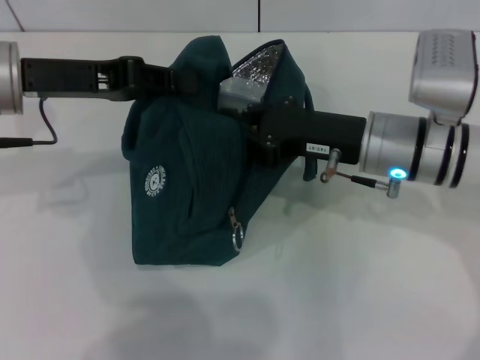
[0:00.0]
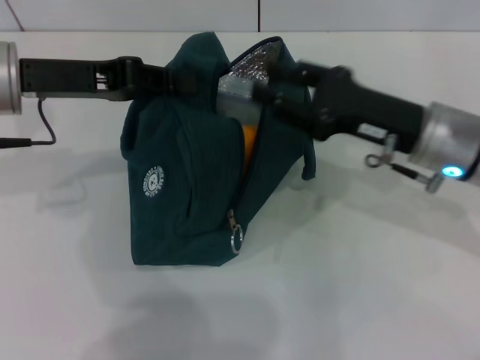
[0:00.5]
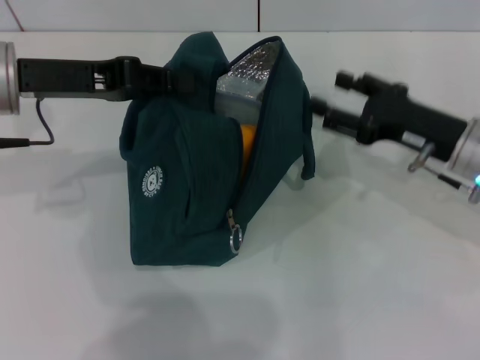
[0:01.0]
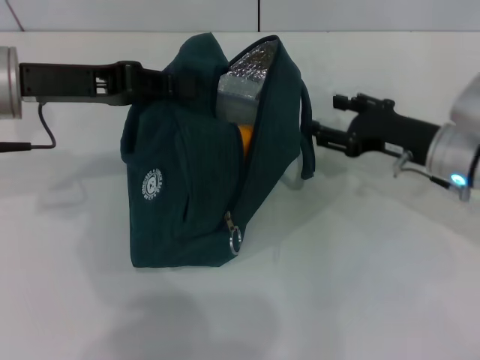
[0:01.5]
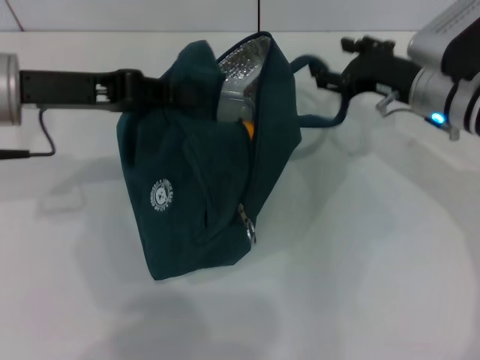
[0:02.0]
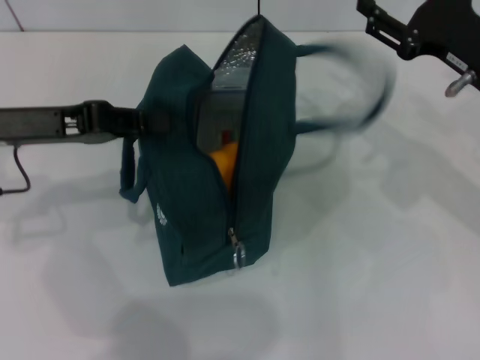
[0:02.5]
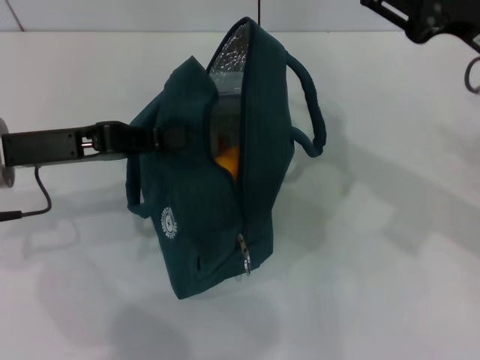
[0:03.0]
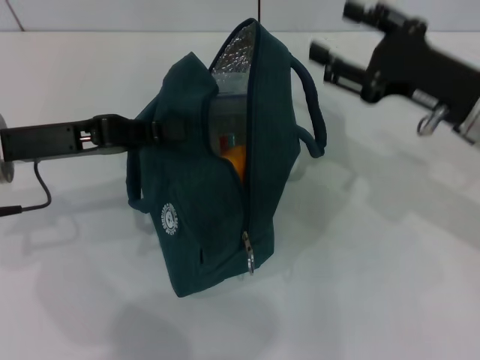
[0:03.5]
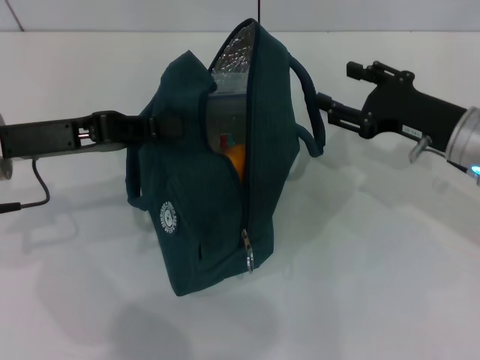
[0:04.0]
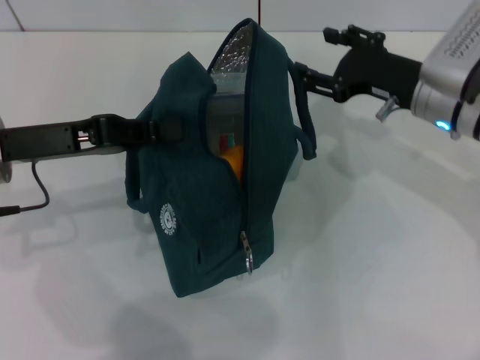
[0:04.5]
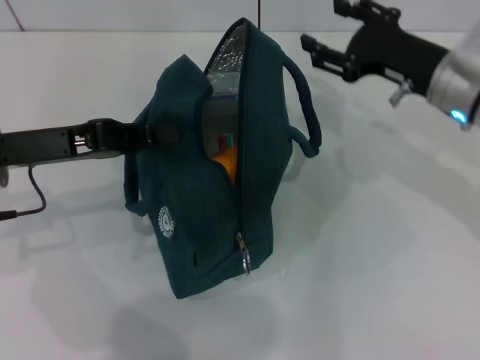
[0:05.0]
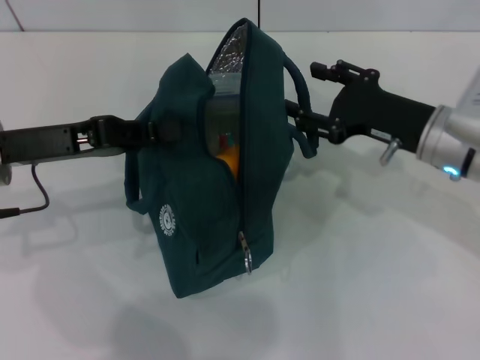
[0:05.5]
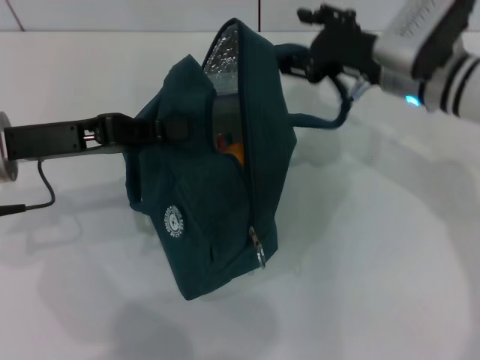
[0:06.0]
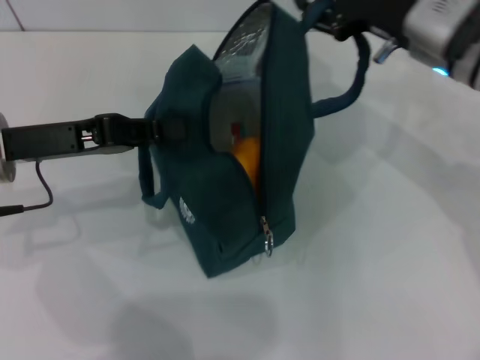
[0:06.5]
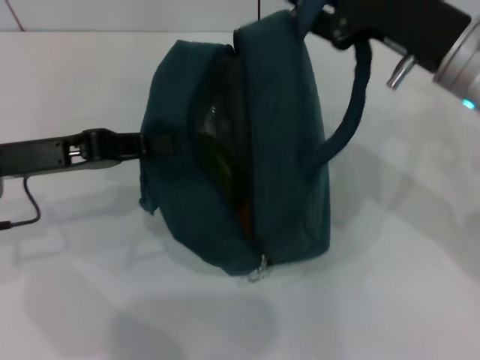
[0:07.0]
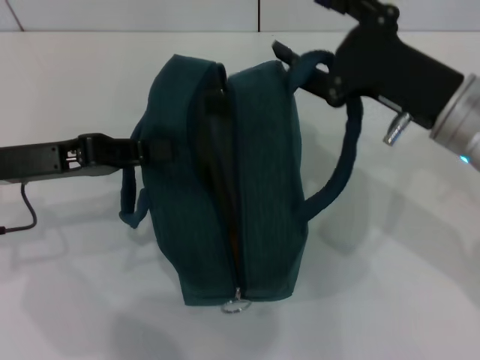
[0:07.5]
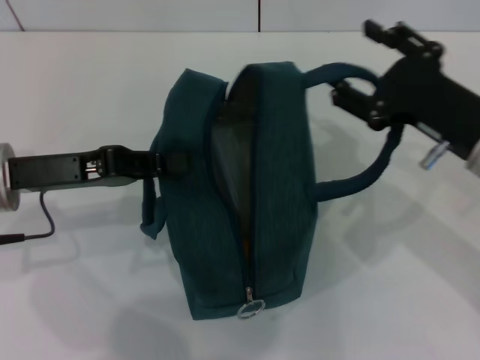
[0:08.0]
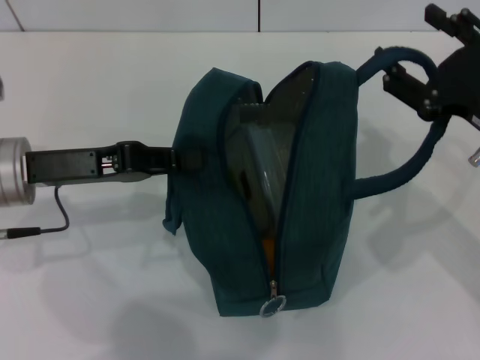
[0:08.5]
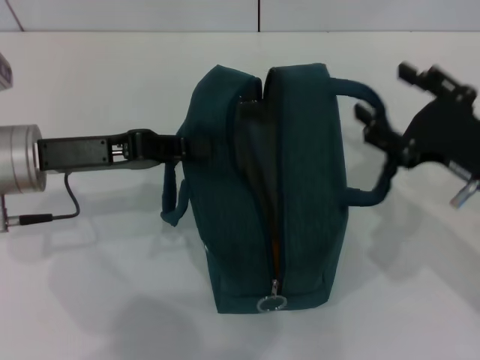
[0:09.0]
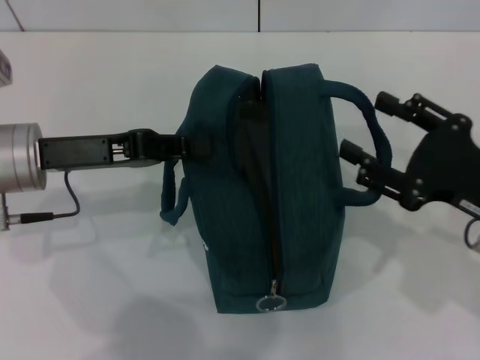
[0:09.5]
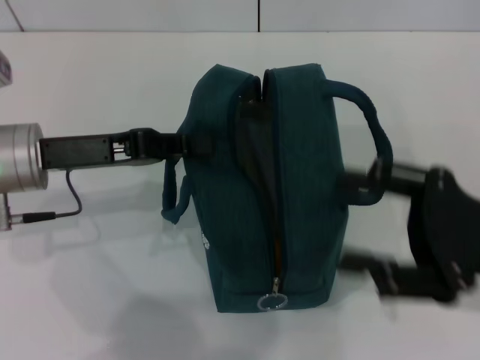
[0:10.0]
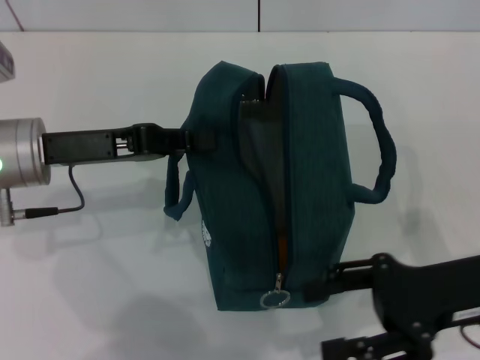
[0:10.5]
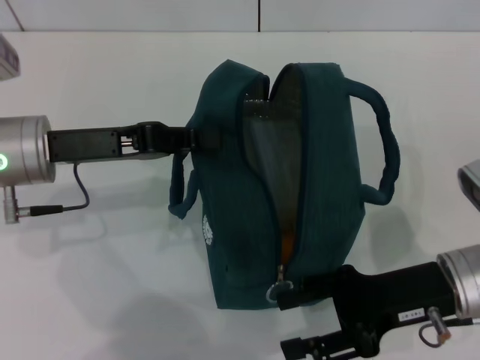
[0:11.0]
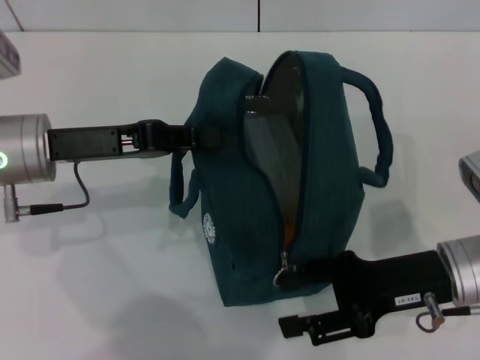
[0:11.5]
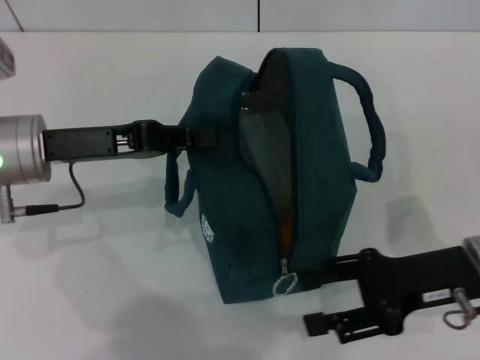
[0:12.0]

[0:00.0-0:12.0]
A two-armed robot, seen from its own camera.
Step, 0.5 to 9.0 s: Hold the lunch bag with your right hand.
0.0 to 2.0 s: The right gripper shifts about 10 cm forward and to the right, and opens its fingers.
2.0 to 4.0 s: The left gripper ends up roughly 5 cm from where it was. The right gripper heads backward, covering some 5 cm.
4.0 to 6.0 s: The right gripper is displaced to the left and forward by about 10 cm.
6.0 to 8.0 s: The right gripper shifts roughly 15 cm backward.
8.0 to 10.0 s: The right gripper moves roughly 5 cm.
10.0 to 12.0 s: The right gripper goes about 5 cm downward.

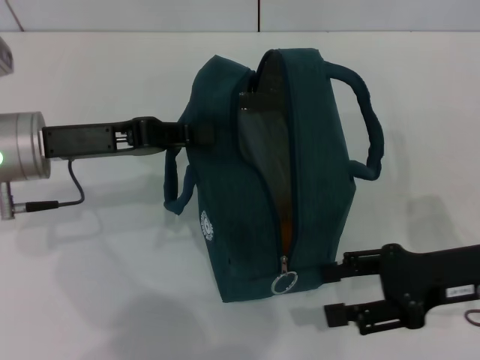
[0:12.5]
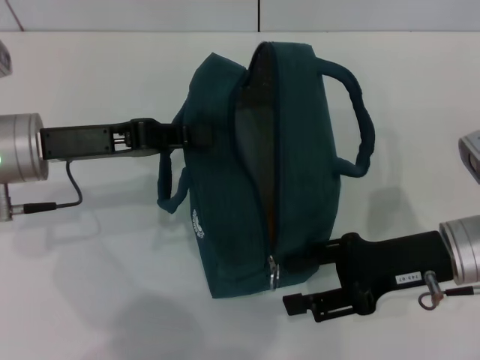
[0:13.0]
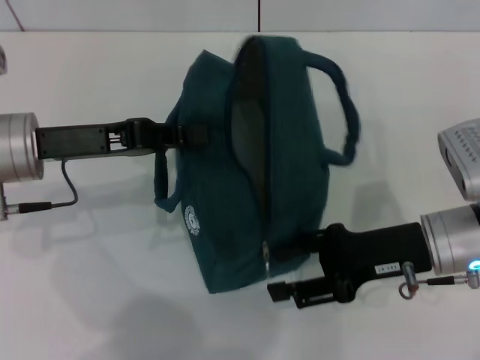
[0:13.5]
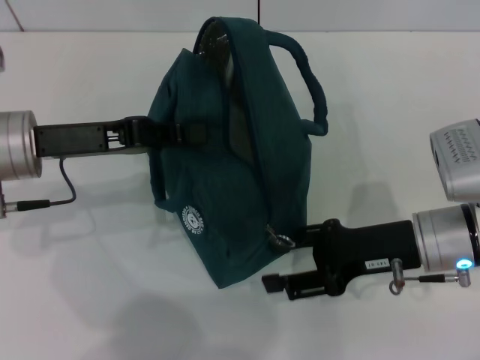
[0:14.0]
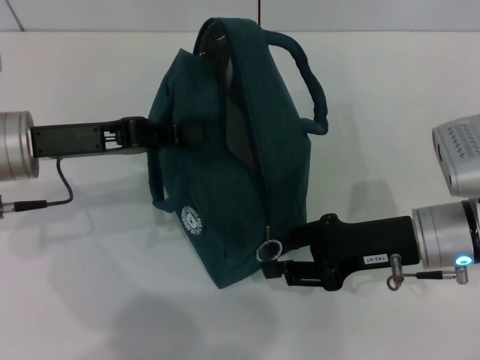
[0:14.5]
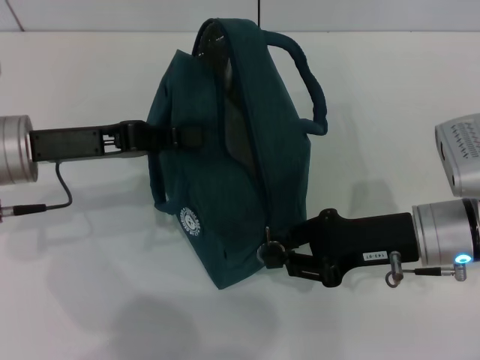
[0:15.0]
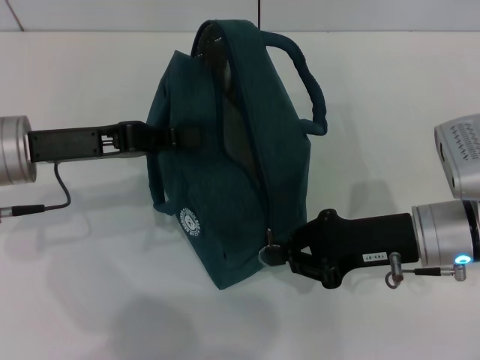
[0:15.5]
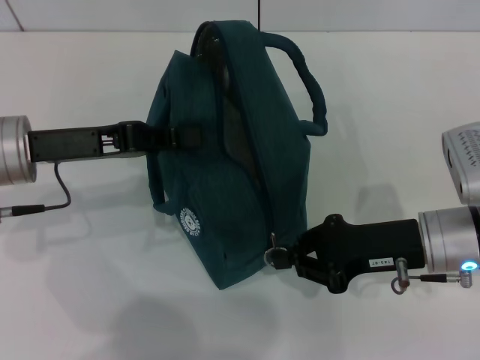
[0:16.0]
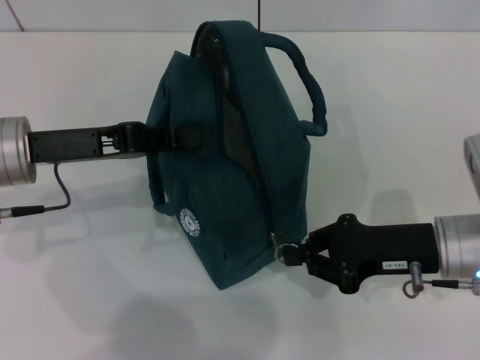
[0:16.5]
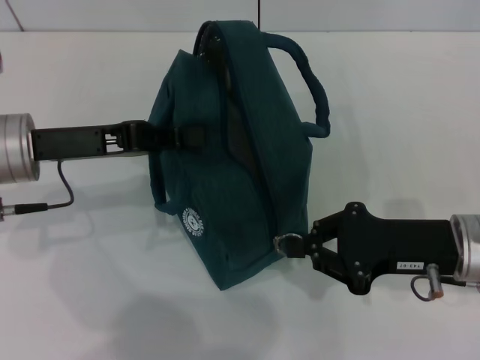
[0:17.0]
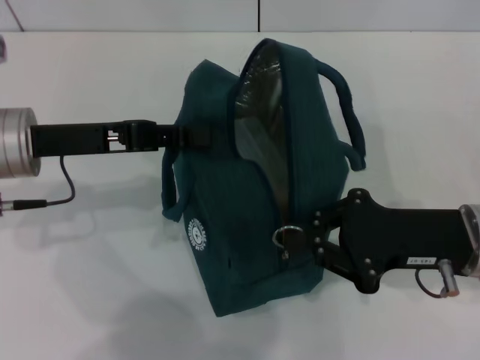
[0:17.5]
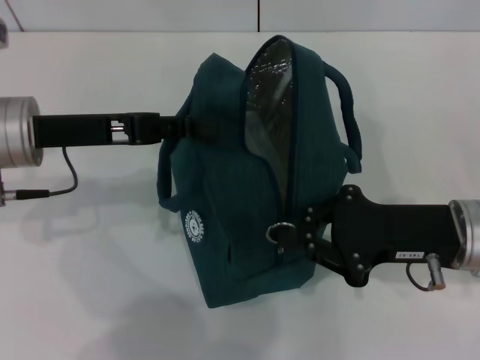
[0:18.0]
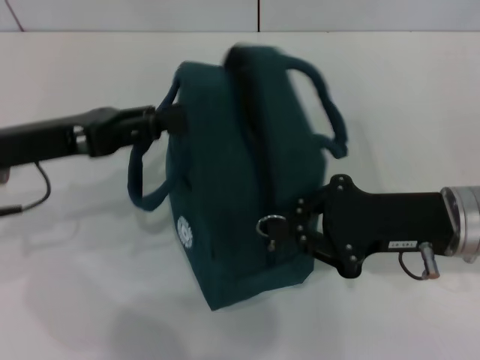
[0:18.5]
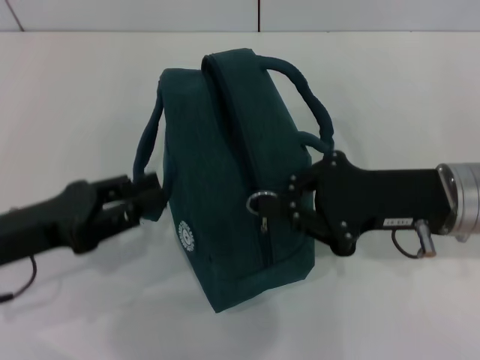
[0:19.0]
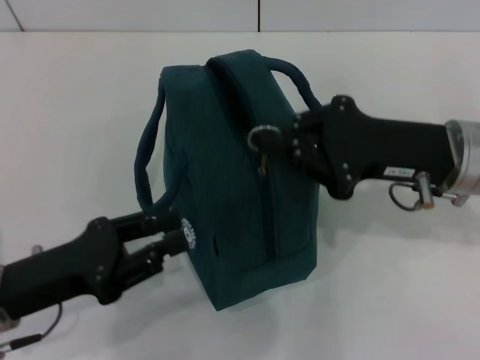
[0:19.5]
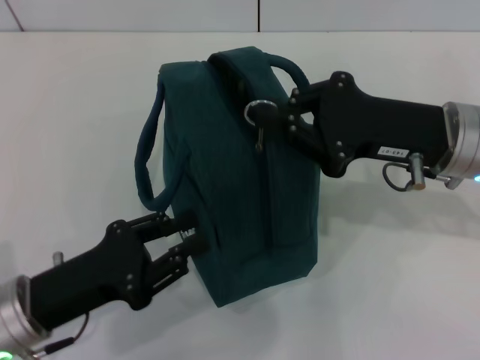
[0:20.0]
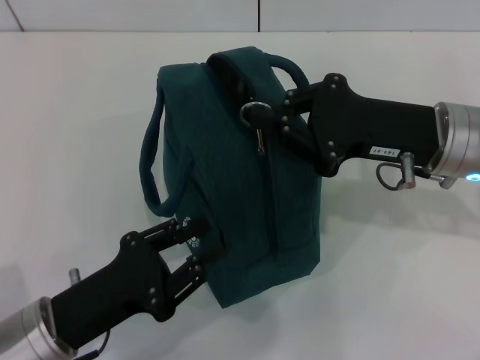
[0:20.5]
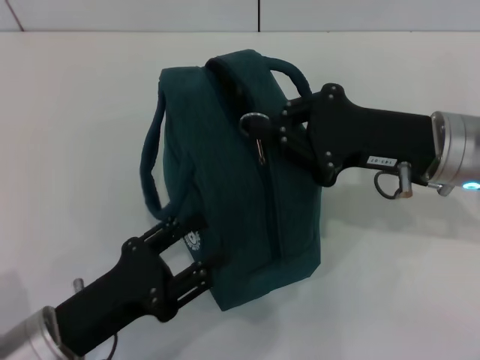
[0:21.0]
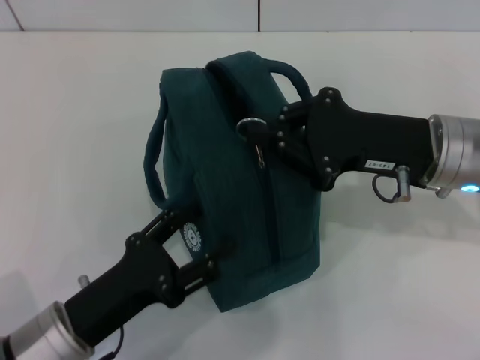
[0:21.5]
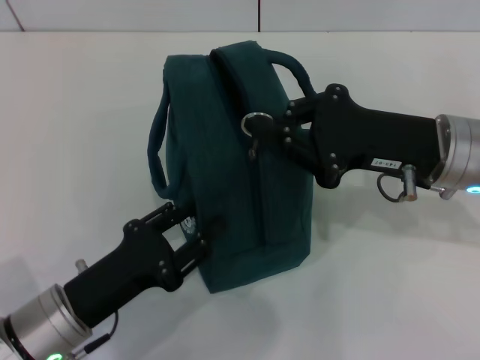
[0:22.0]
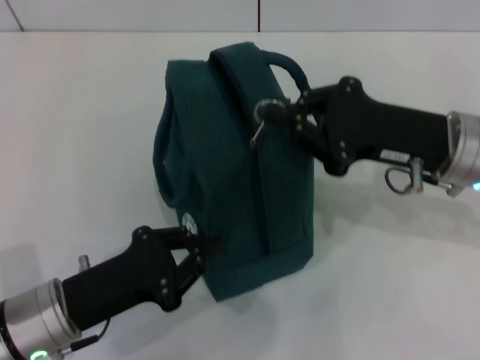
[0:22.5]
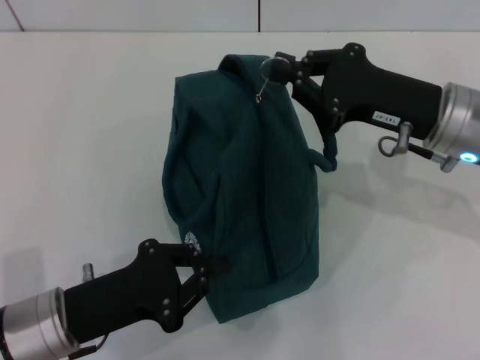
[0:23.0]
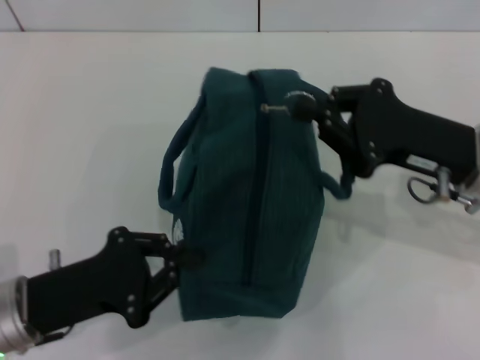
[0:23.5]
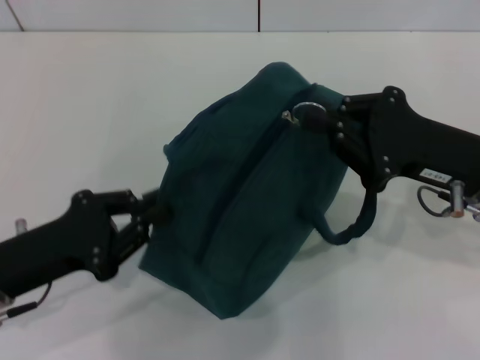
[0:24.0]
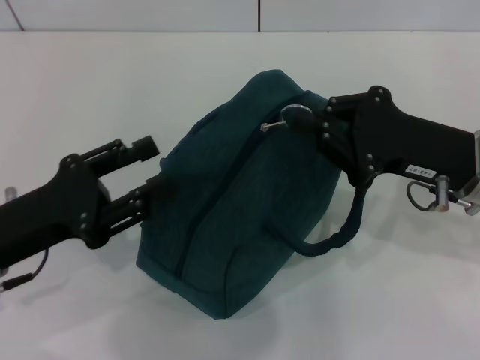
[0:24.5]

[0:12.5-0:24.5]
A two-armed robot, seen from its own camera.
Step, 12.5 to 18.0 s: Hold the lunch bag with your left hand.
12.5 to 14.5 s: The right gripper moves to the left, approximately 5 cm.
14.5 to 16.5 s: The right gripper closes.
16.5 to 18.5 s: The left gripper opens.
18.5 to 20.5 s: The left gripper is displaced backward and downward by some 15 cm, while the right gripper shifts by about 5 cm.
20.5 to 22.5 s: The left gripper opens, then closes again.
22.5 to 24.5 s: The left gripper goes roughly 5 cm upward.

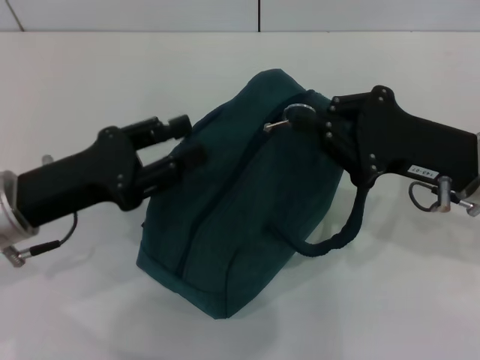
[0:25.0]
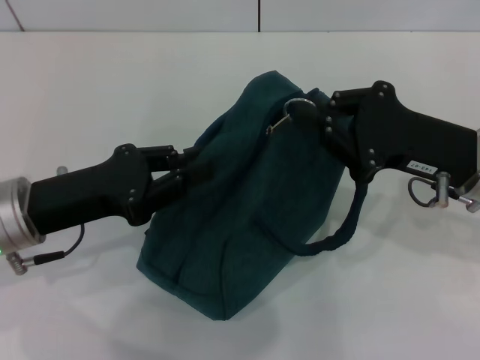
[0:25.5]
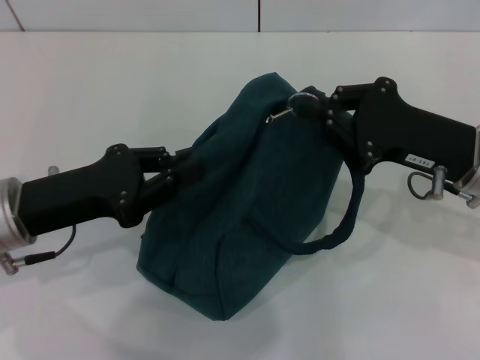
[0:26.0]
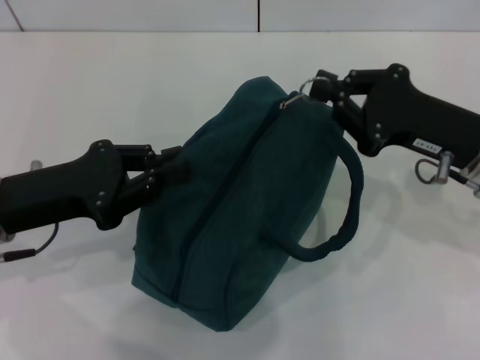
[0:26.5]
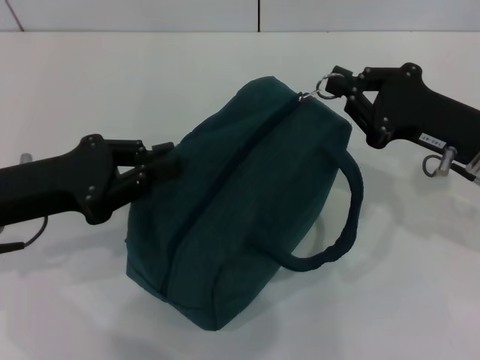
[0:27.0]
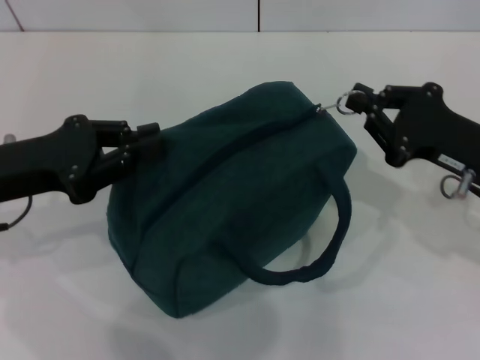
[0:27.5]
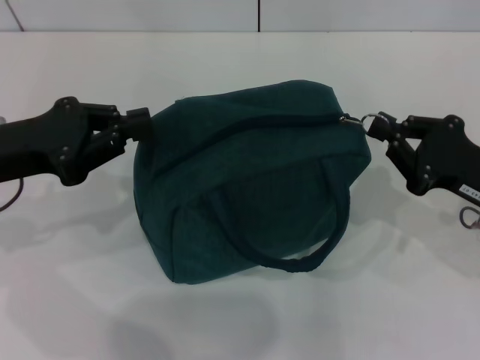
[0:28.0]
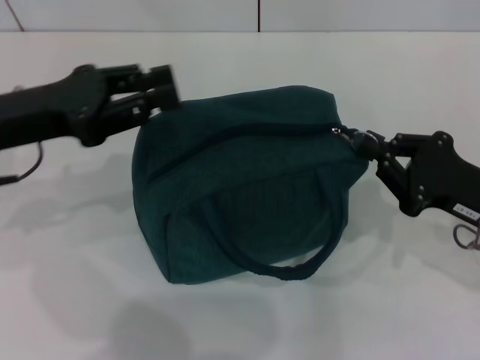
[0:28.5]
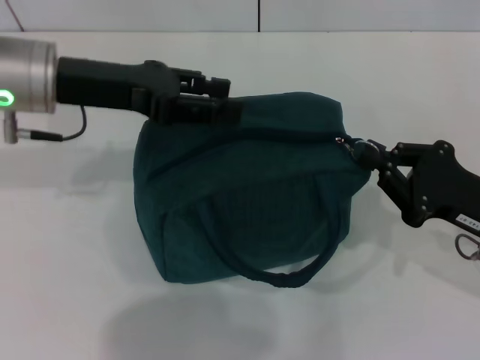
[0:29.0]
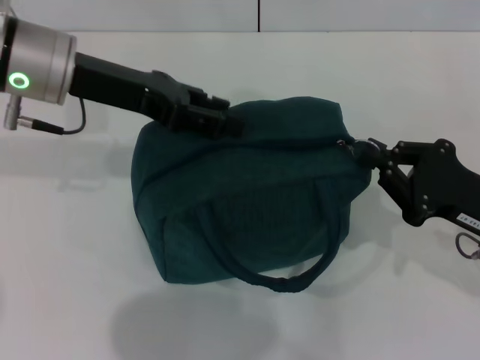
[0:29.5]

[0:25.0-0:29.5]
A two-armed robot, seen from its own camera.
25.0 to 27.0 s: The left gripper closes its fingers.
27.0 to 29.5 s: The left gripper heads forward, upward and to the right, covering some 15 cm, and opens. The right gripper travels backward by some 5 cm.
